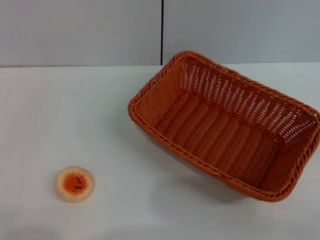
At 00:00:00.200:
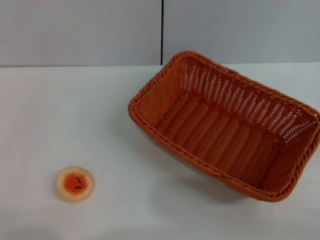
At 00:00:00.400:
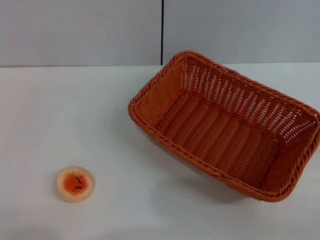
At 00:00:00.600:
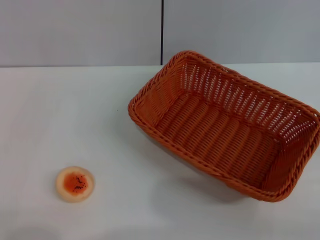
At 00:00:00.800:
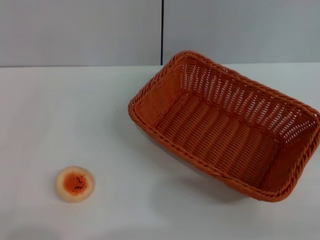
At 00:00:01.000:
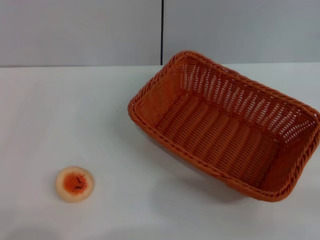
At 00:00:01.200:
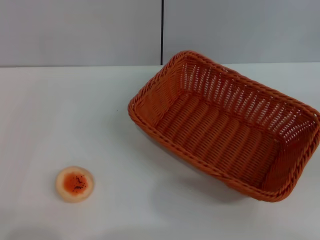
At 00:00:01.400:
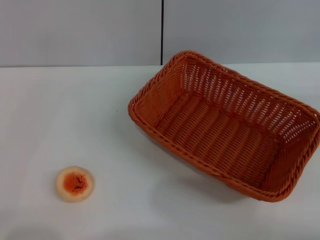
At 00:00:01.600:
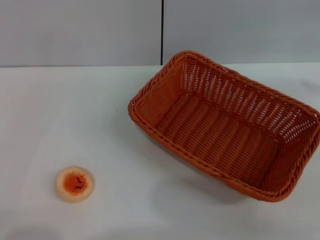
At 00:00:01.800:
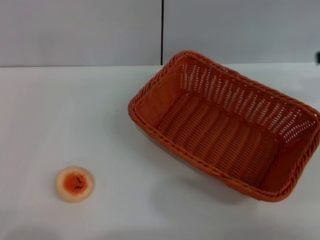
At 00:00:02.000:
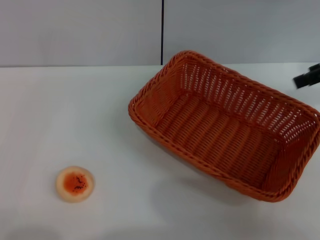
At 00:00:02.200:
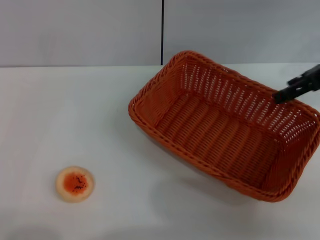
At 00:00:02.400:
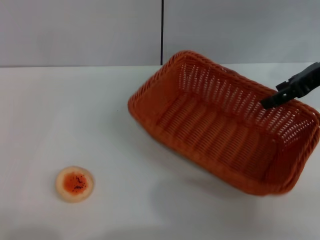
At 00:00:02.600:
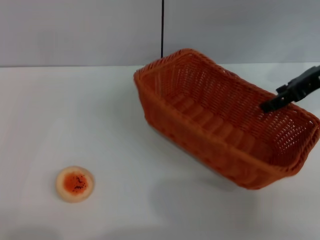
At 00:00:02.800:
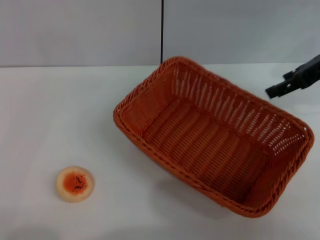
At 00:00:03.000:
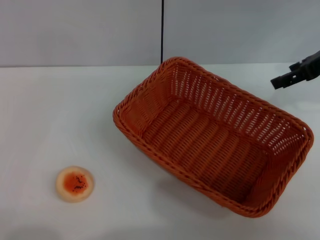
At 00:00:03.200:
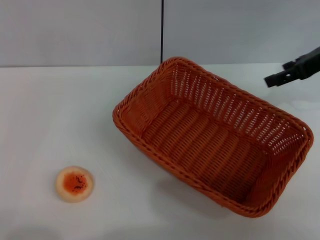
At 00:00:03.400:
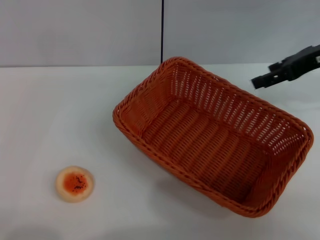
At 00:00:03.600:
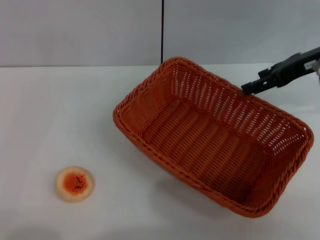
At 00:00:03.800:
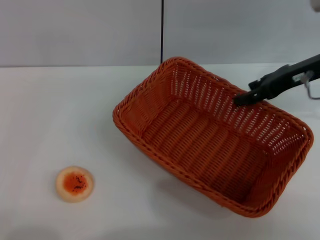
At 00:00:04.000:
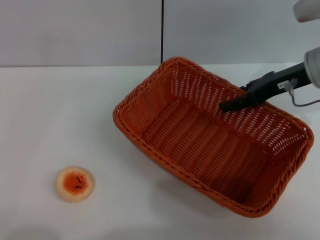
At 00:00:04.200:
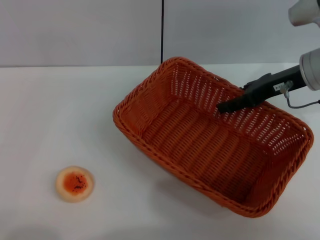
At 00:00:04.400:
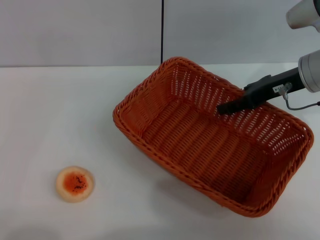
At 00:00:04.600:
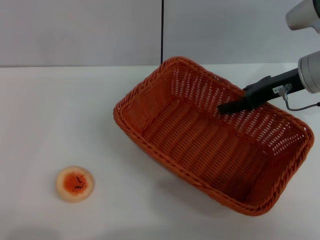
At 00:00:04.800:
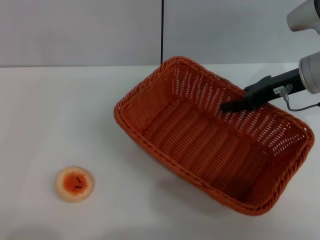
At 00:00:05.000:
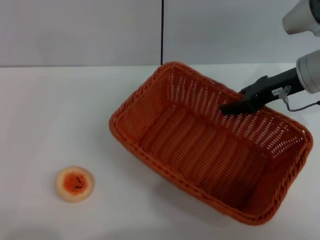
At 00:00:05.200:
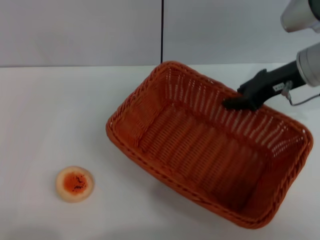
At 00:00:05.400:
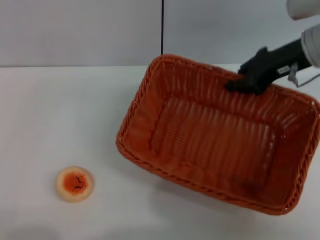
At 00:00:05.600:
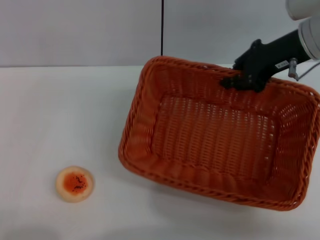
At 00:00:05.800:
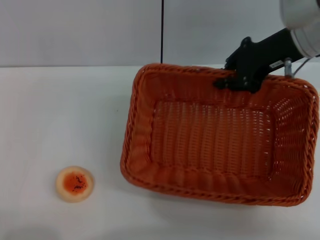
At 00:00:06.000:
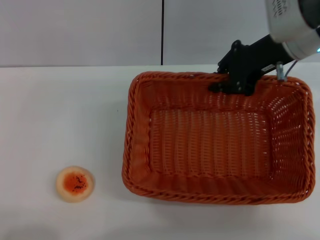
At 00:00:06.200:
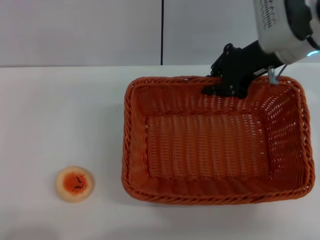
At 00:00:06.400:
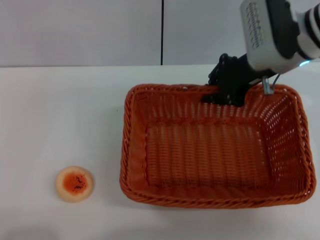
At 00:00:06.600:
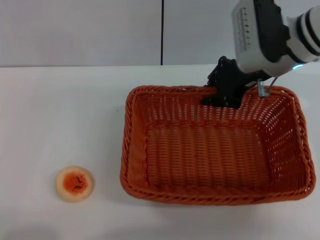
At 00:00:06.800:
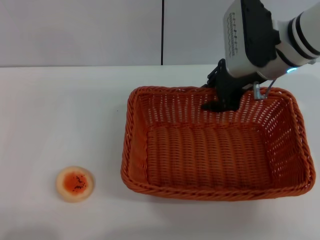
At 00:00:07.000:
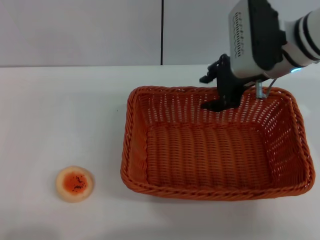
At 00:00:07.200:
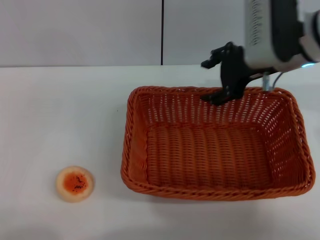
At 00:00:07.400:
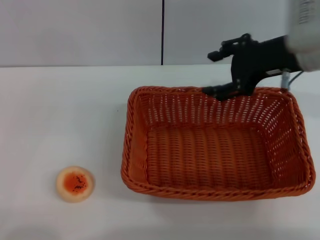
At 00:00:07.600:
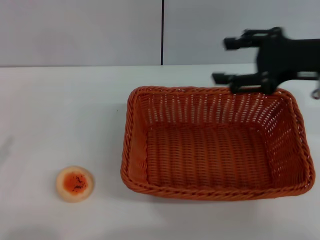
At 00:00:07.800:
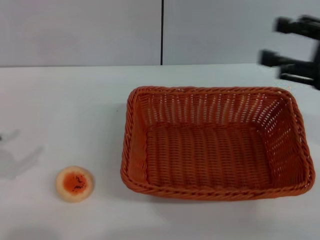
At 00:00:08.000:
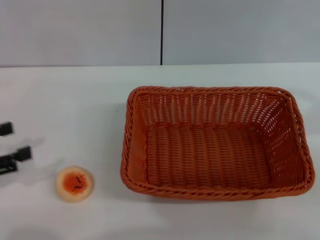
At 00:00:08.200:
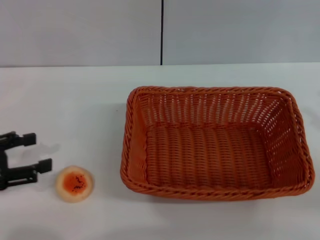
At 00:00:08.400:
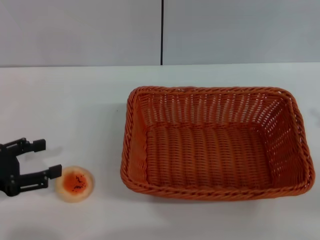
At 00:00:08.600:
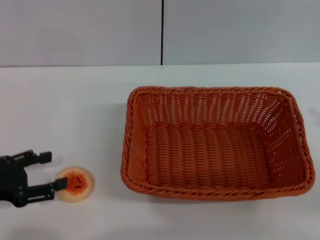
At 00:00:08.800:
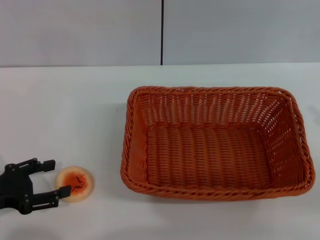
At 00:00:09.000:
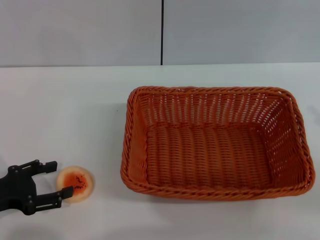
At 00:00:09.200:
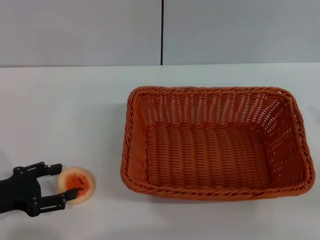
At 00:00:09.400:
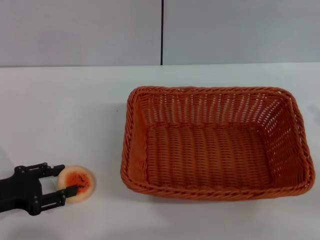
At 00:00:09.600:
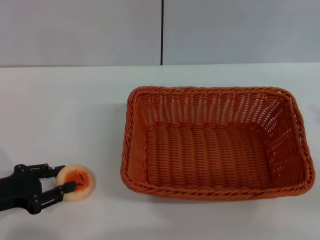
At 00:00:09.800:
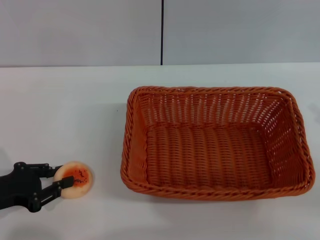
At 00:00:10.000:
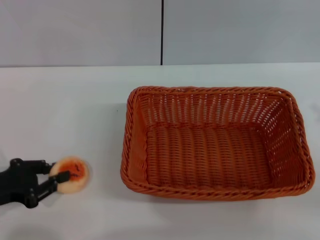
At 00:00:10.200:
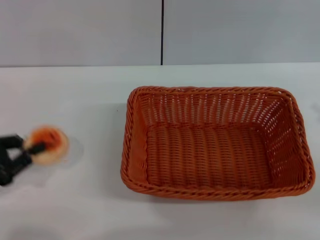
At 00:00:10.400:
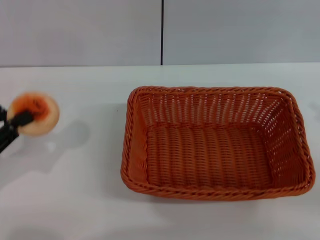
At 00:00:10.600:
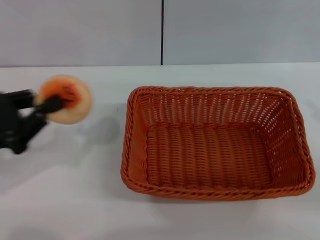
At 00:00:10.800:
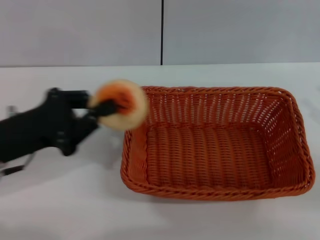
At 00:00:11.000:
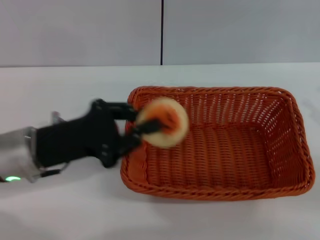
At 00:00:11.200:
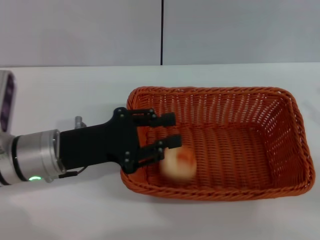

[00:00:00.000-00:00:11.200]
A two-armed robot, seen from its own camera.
Step, 00:00:00.000 to 00:00:07.200: Move the basket to the center of view with the right gripper.
Step, 00:00:07.400 to 00:00:10.200: Pick up the egg yolk pastry with the left gripper.
00:00:01.600 to 00:00:03.200: The right gripper heads to the left and forward, covering some 15 cm.
00:00:03.200 to 00:00:04.800: The right gripper is displaced downward and to the left by approximately 10 cm.
00:00:04.800 to 00:00:06.400: The right gripper shifts about 5 cm to the left, and closes its fingers.
00:00:06.400 to 00:00:08.000: The right gripper heads to the right and backward, covering approximately 25 cm, and opens up. The left gripper moves forward and upward, roughly 15 cm.
00:00:08.000 to 00:00:09.600: The left gripper heads downward, covering approximately 10 cm.
00:00:09.600 to 00:00:11.200: The left gripper shifts about 15 cm to the right and forward, and closes.

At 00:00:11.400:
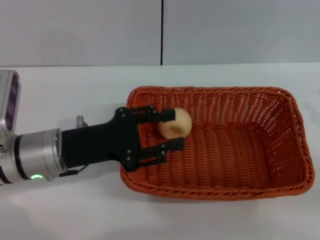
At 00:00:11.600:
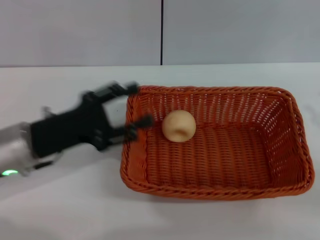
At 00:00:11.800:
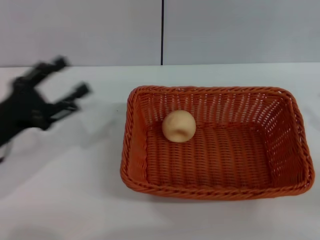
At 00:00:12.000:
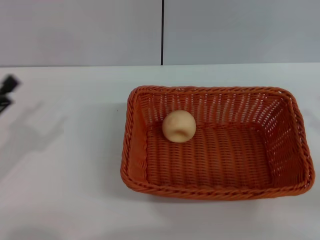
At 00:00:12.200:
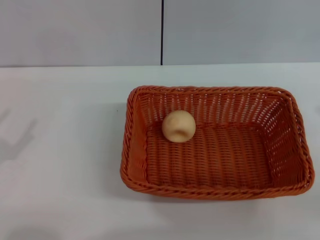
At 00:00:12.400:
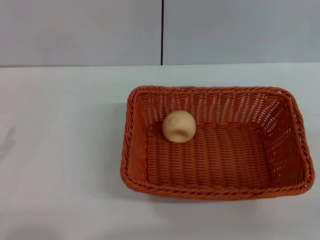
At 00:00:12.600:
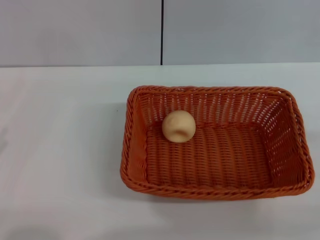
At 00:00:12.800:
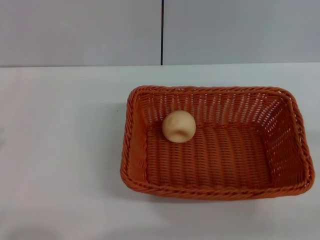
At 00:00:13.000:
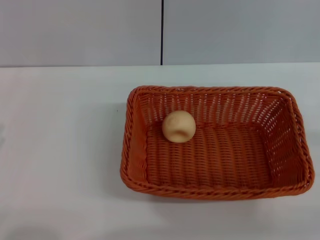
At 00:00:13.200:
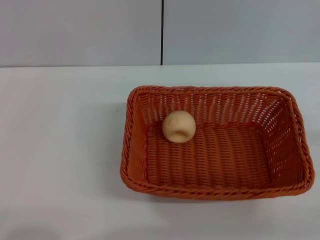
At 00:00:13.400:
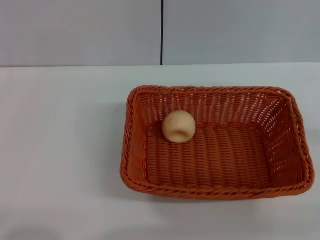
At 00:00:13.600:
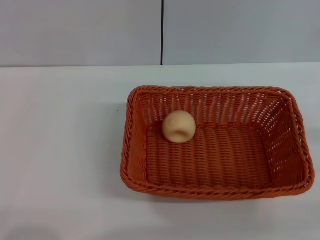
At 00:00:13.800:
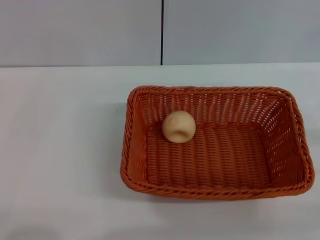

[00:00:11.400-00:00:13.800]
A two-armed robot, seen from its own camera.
00:00:11.400 to 00:00:12.600: The left gripper shifts about 20 cm to the left and backward, and opens. The right gripper shifts by some 5 cm.
